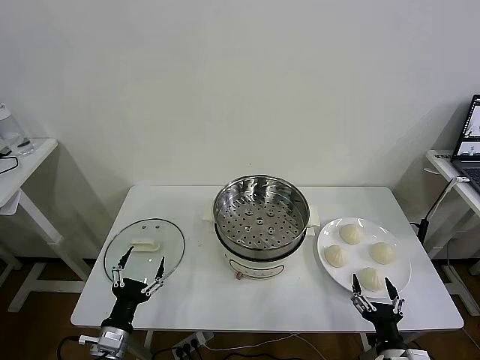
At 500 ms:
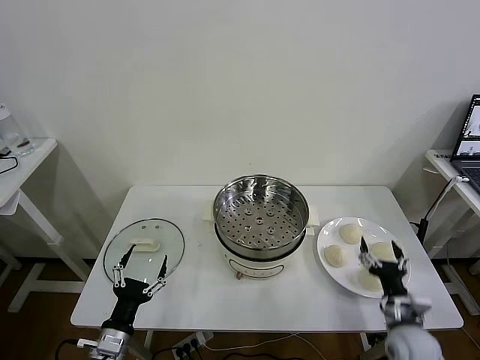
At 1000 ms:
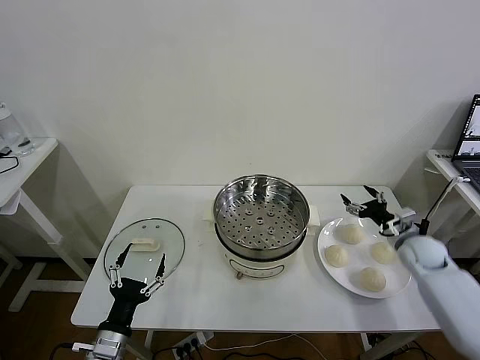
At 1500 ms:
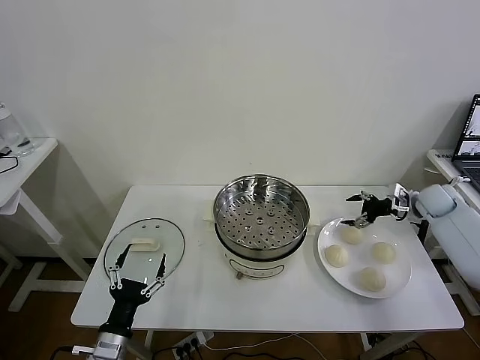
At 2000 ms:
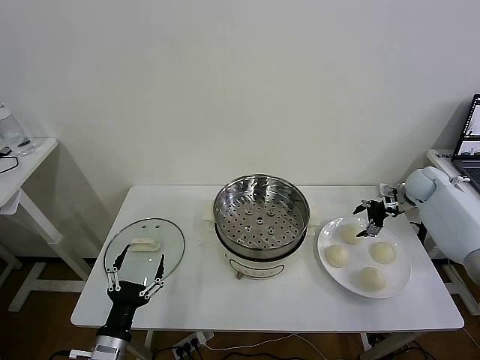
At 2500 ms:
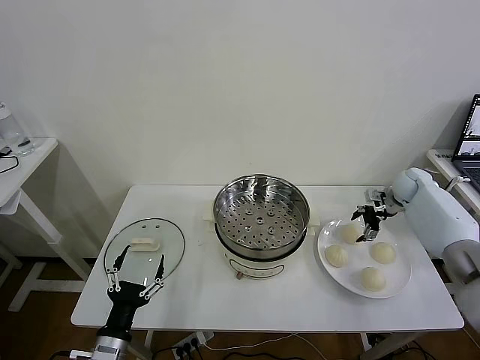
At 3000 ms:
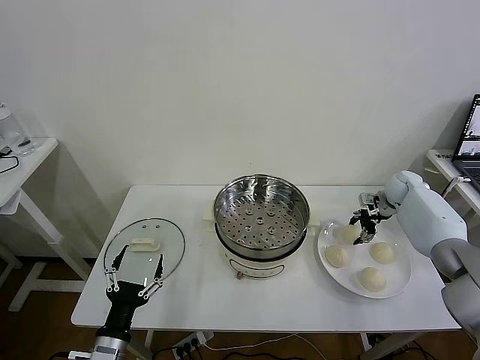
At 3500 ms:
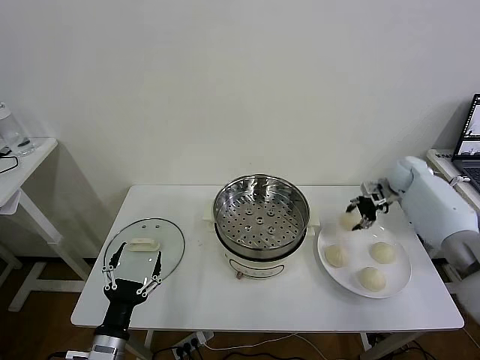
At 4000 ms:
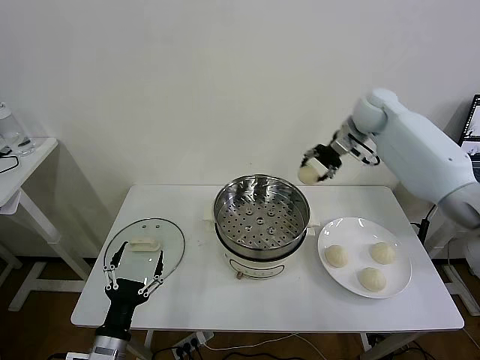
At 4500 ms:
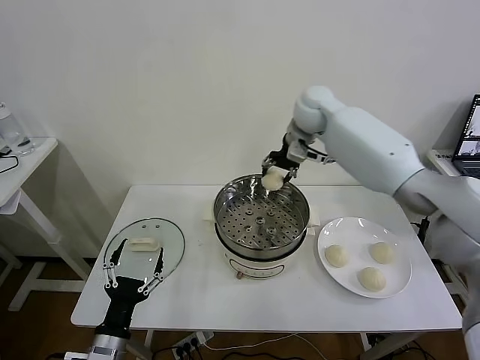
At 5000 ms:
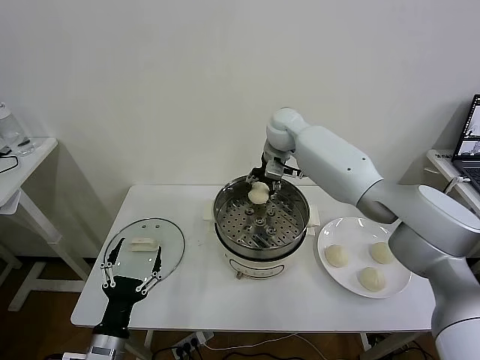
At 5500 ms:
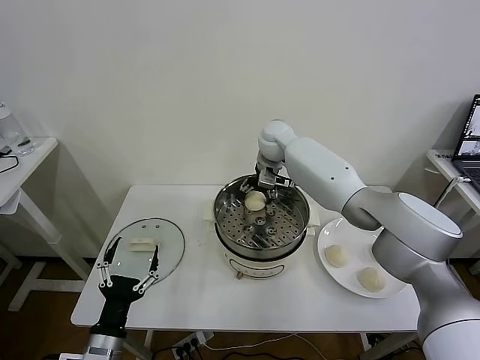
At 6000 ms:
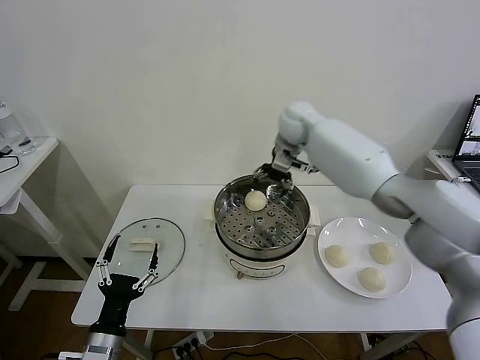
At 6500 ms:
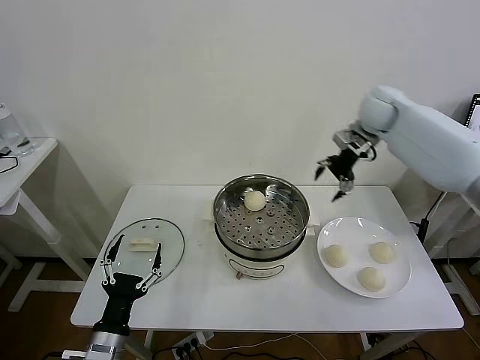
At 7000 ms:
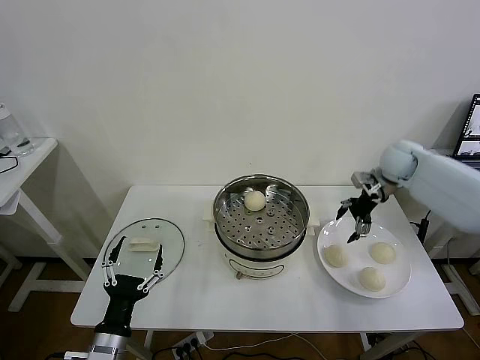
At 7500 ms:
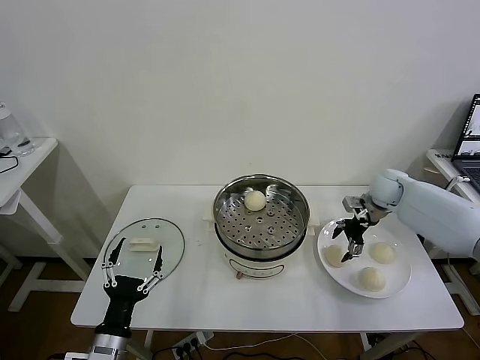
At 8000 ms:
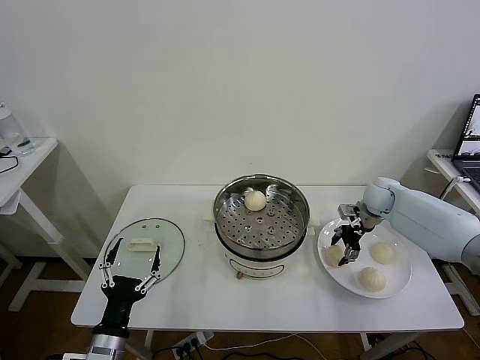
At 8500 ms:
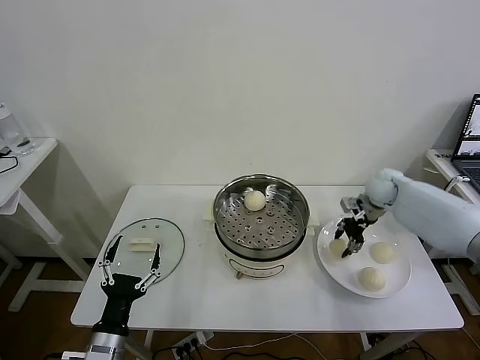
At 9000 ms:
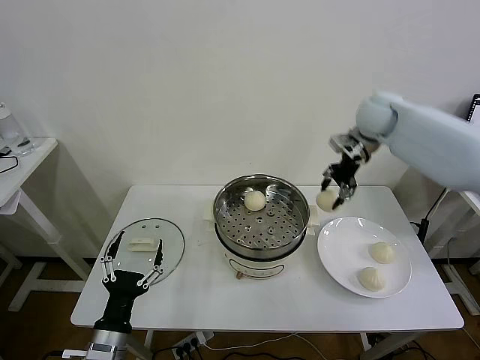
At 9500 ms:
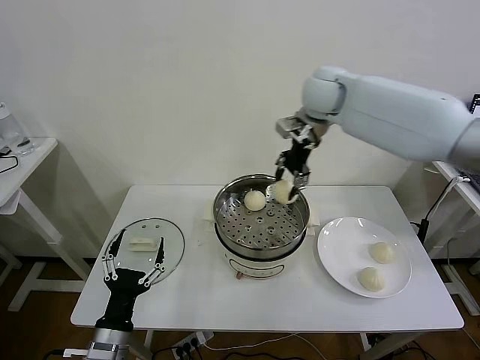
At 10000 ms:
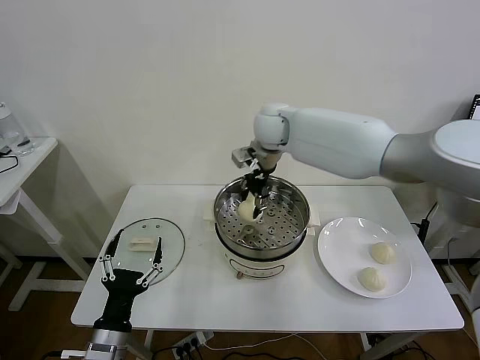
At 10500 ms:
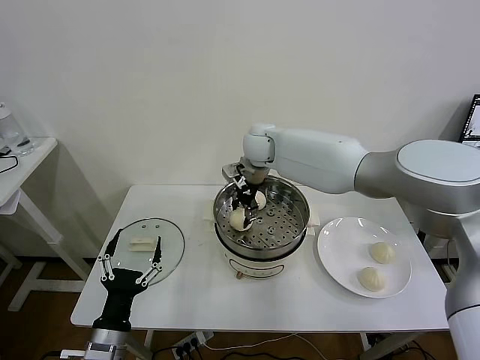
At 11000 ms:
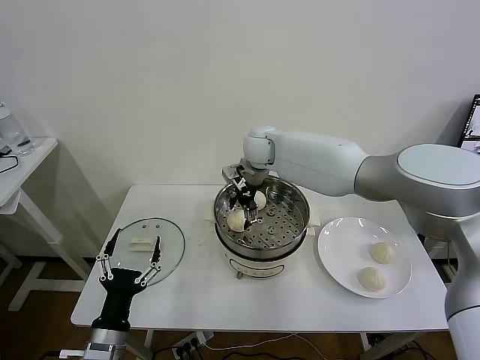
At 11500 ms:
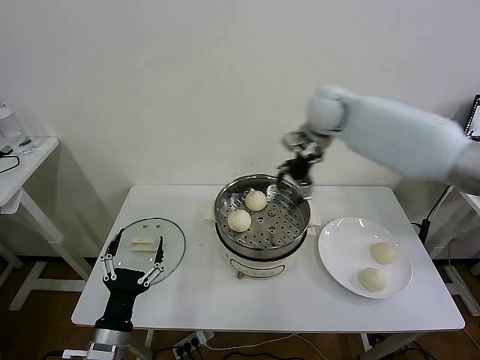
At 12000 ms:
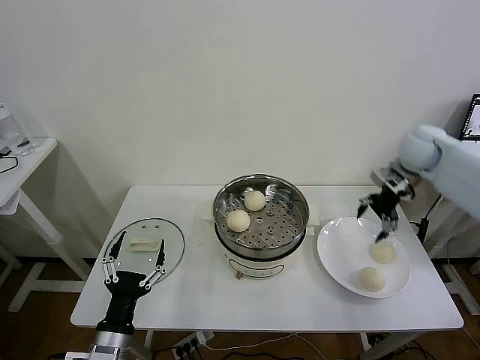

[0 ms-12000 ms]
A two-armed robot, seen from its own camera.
Task of the whole recording: take steamed baozi put them in steamer then cover it.
Step, 0 ms to 3000 ms: Grasp the baozi in the plate with right gripper.
Step, 3500 ms to 5500 ms: Place the baozi on the steamer with right gripper.
Step, 6000 ms to 8000 ms: Grasp the baozi in the plate with right gripper.
Step, 8500 ms to 11000 ms: Place the baozi on the steamer with right gripper.
2000 ms to 4000 ms: The right gripper travels to the left and upward by approximately 30 cm, and closes up.
4000 ms to 6000 ms: The right gripper heads to the left, covering some 10 cm, and opens its fingers.
6000 ms to 8000 ms: The right gripper is displaced to the right and downward by approximately 30 cm, and closes its fingers.
8000 ms to 10000 ms: The right gripper moves to the left and upward, about 35 cm, and closes.
10000 ms to 12000 ms: The right gripper is displaced to the right by roughly 35 cm, and opens its fingers.

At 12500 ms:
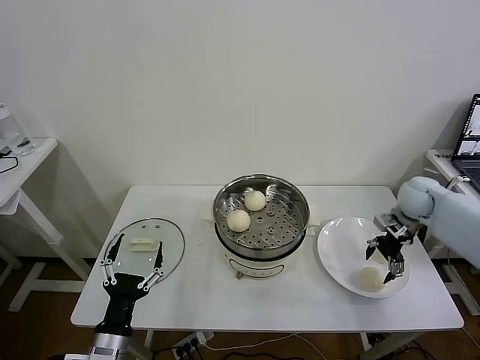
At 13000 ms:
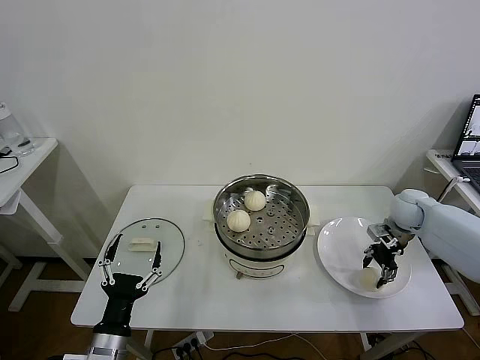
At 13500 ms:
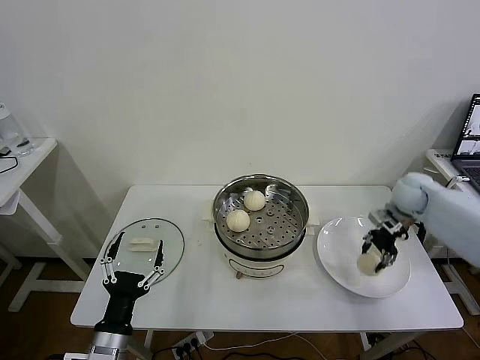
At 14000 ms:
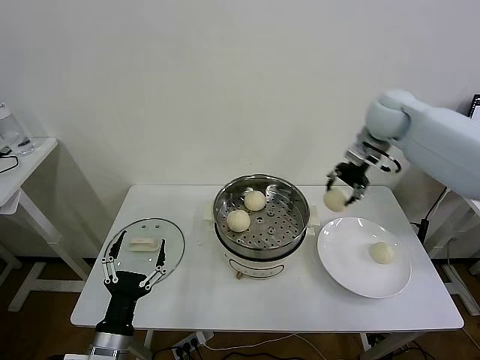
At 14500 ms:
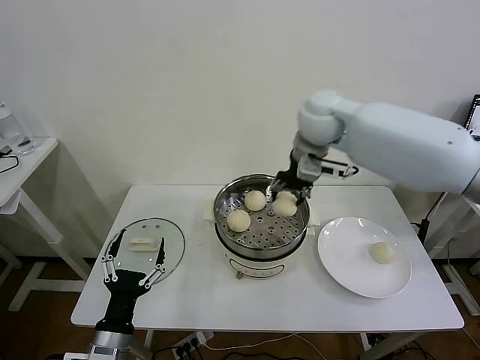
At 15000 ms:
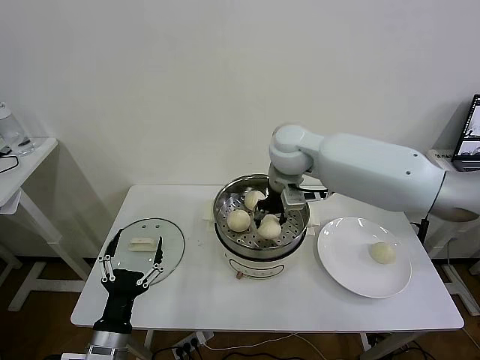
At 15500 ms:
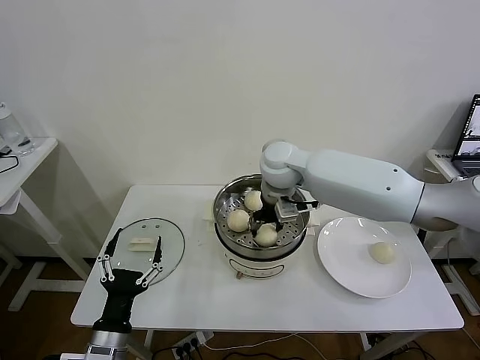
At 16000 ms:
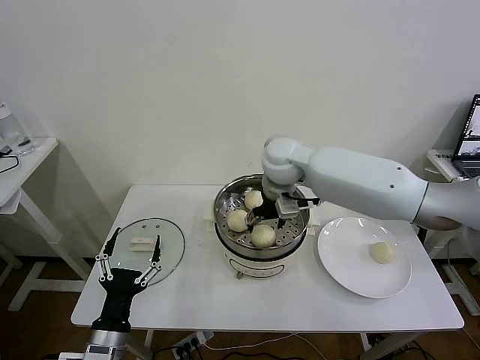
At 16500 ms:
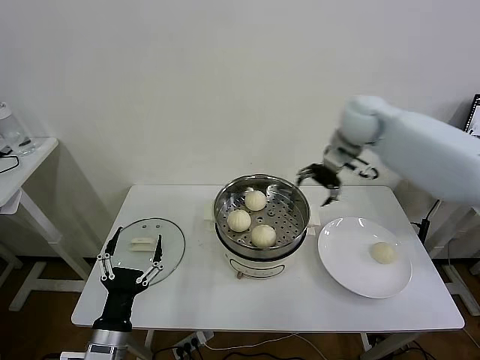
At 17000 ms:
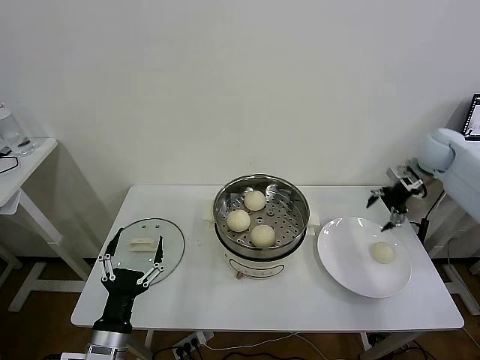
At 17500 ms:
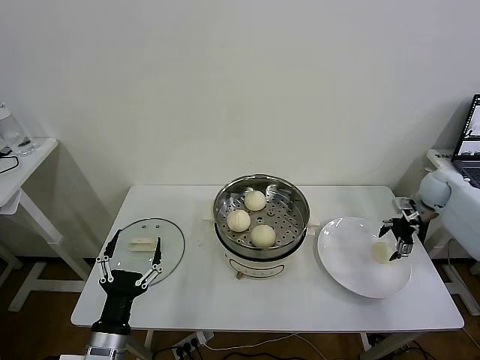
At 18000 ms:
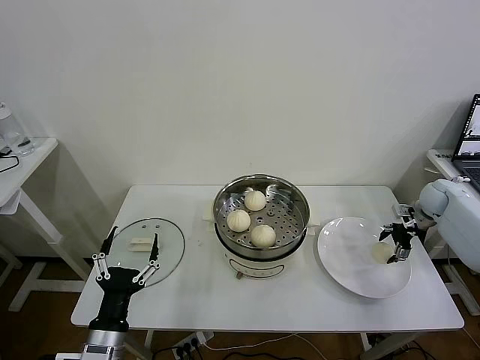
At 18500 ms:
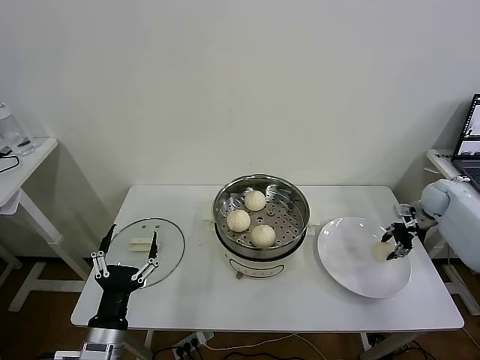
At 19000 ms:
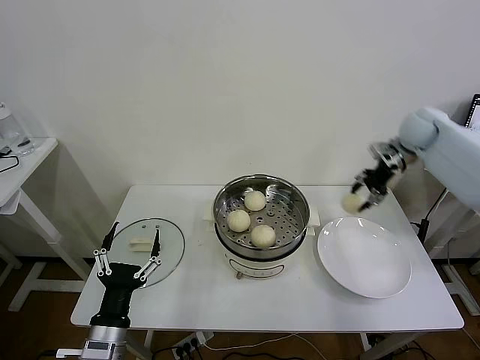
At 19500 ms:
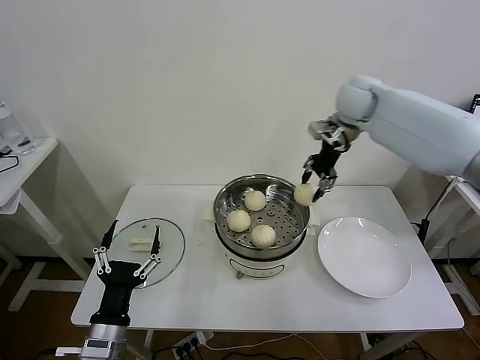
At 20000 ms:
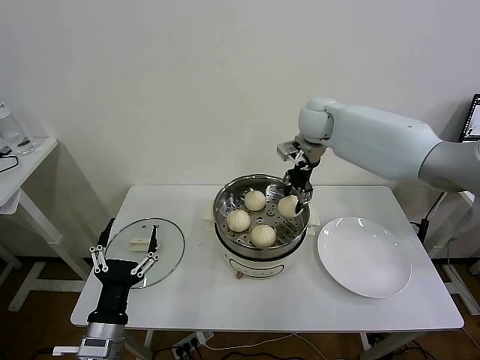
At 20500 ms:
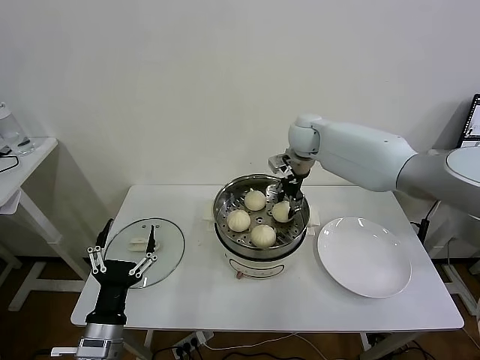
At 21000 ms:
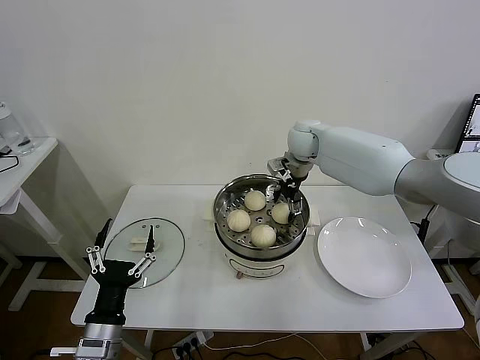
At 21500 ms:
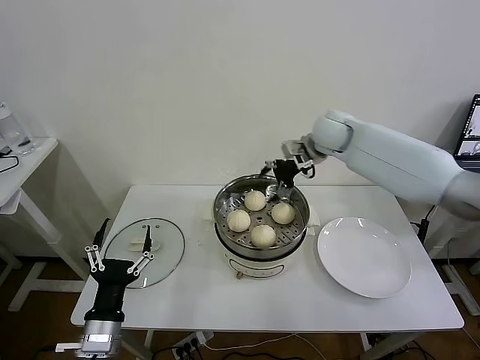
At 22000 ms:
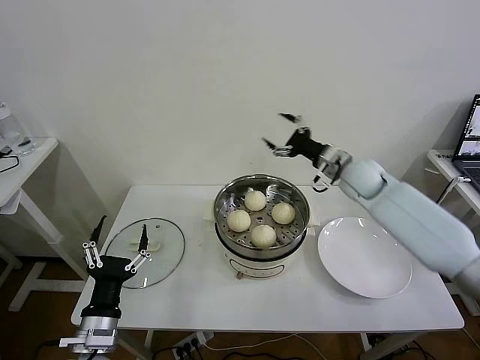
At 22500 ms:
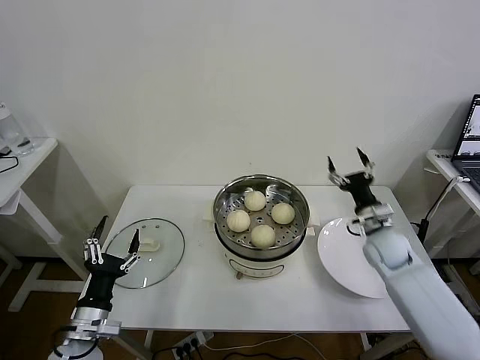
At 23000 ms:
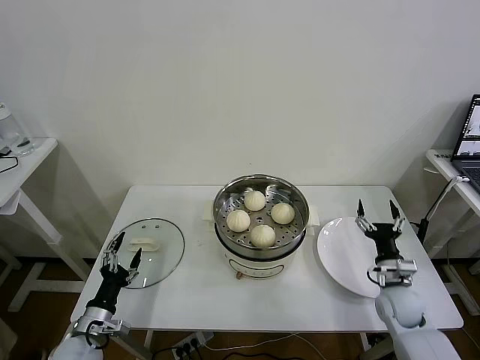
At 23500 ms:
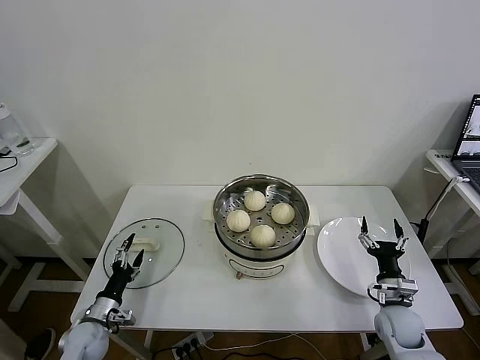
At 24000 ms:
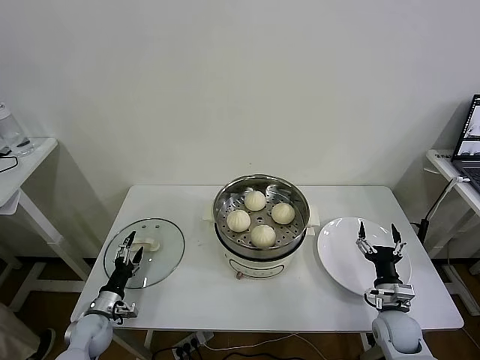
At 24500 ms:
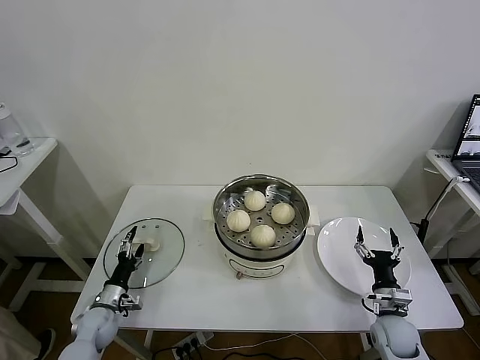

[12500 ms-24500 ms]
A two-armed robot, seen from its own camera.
Task of the whole recording: take steamed baozi put them in steamer then cover it.
Step, 13500 ms to 15500 ms: Place the baozi on the steamer with right gripper.
Step, 16000 ms to 18000 ms: Grasp the baozi in the plate with right gripper.
Step, 19000 ms to 21000 ms: Place the baozi on the steamer with right gripper.
12500 ms to 14500 ms: The right gripper shifts approximately 35 cm to the left and upward, and closes its fingers.
14500 ms to 16500 ms: The right gripper is displaced to the right by about 10 cm, and opens its fingers.
16500 ms to 18500 ms: The right gripper moves to the right and downward, roughly 35 cm, and closes.
18500 ms to 20500 ms: The right gripper moves to the left, approximately 35 cm.
20500 ms to 22500 ms: The left gripper moves some 5 cm. The right gripper travels downward, to the right and backward by roughly 35 cm, and opens.
22500 ms to 24500 ms: The left gripper is displaced downward, forward and to the left by approximately 20 cm, while the right gripper is displaced backward and downward by approximately 20 cm.

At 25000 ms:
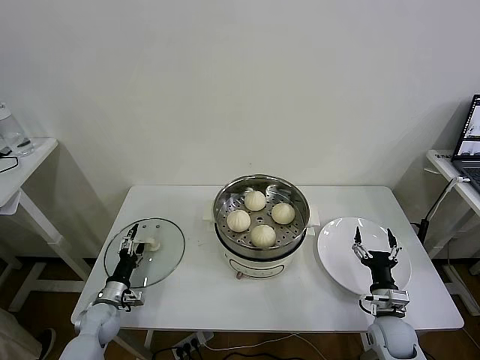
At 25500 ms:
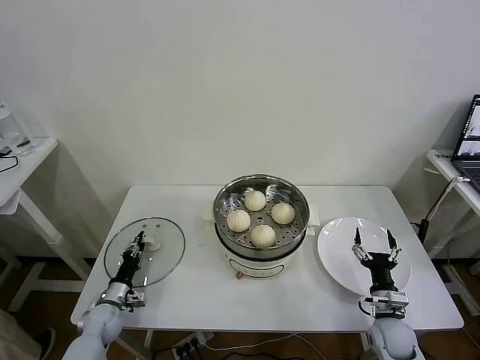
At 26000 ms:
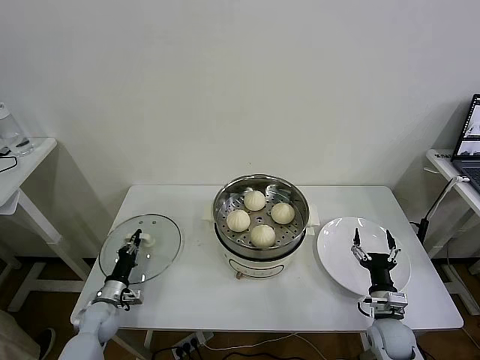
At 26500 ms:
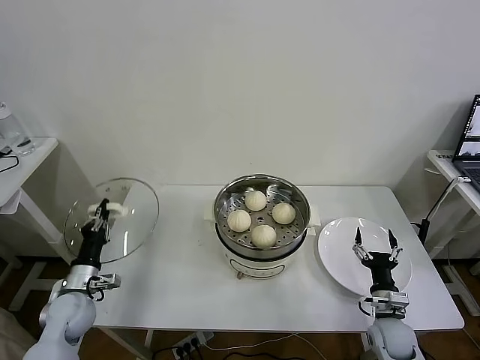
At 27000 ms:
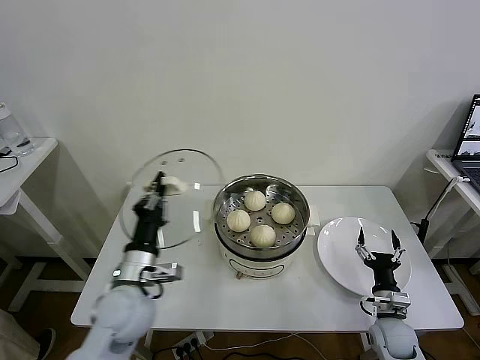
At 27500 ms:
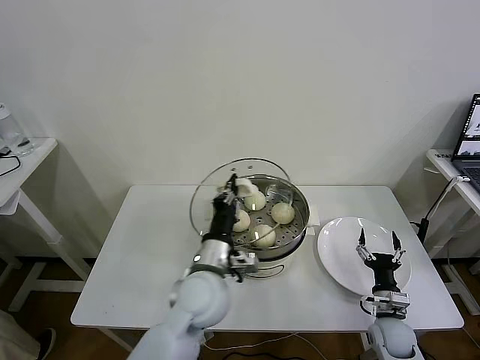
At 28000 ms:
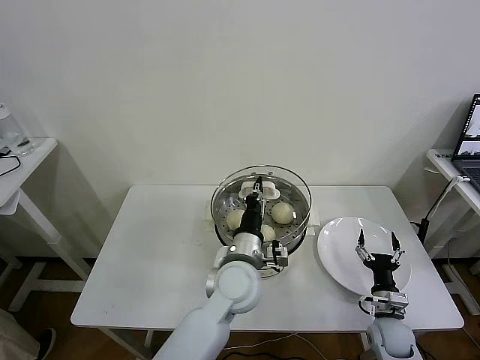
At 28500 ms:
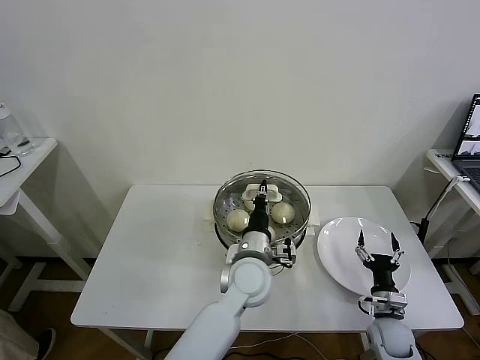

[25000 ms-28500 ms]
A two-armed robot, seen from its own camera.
Task of the whole recording: take steamed baozi put them in steamer then cover it.
25000 ms to 27000 ms: The left gripper moves upward and to the right, some 30 cm, and closes its fingers.
27000 ms to 28500 ms: The left gripper heads to the right, covering about 25 cm.
